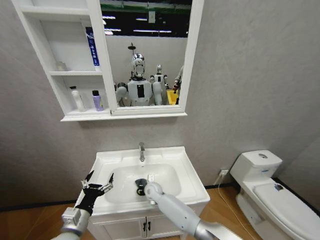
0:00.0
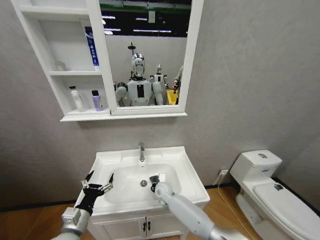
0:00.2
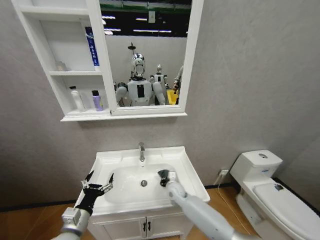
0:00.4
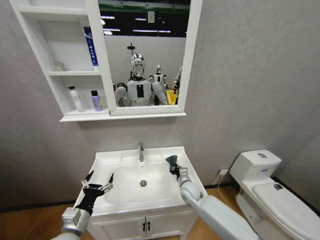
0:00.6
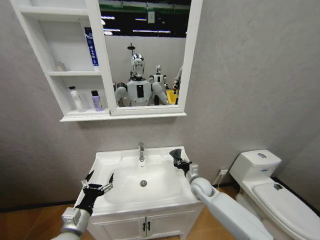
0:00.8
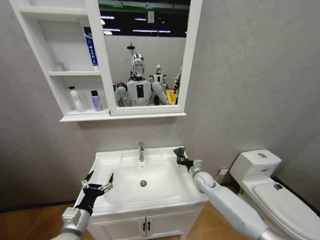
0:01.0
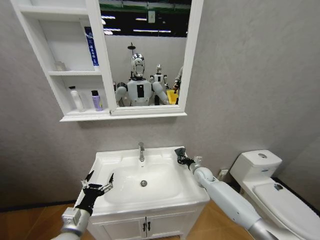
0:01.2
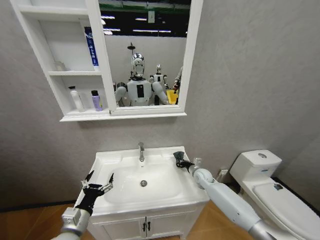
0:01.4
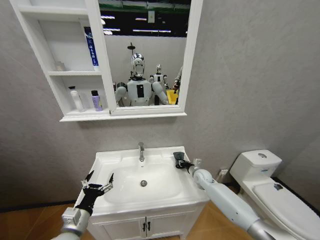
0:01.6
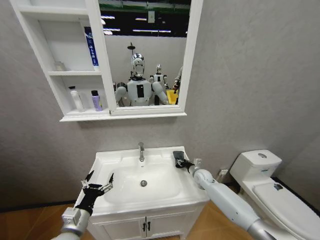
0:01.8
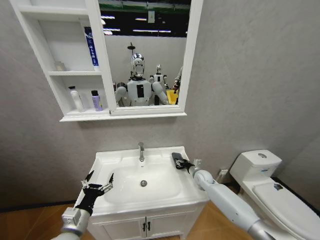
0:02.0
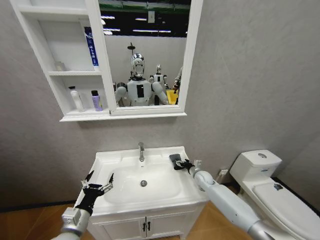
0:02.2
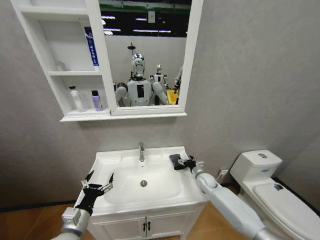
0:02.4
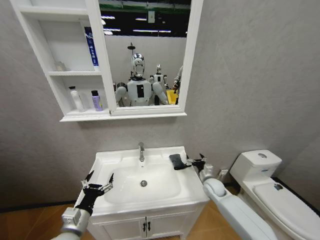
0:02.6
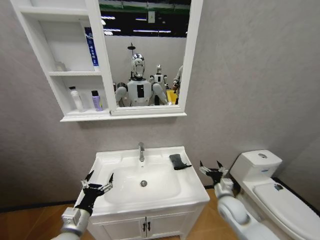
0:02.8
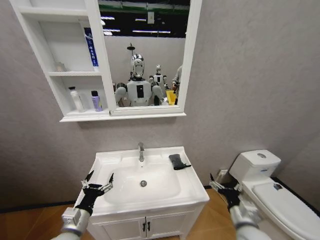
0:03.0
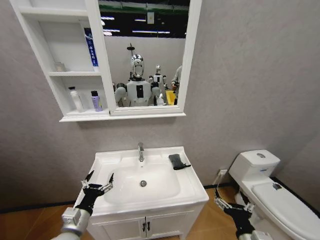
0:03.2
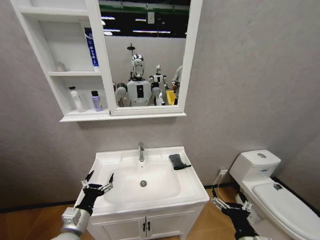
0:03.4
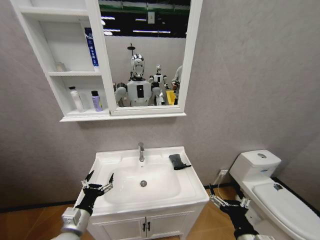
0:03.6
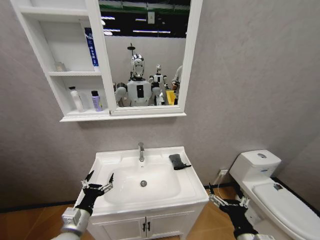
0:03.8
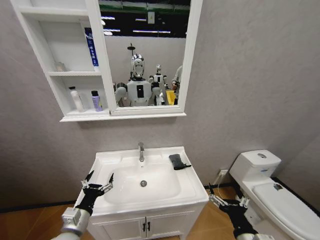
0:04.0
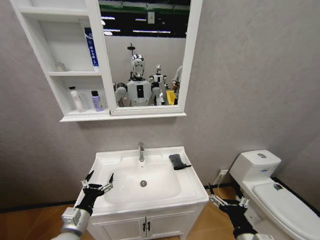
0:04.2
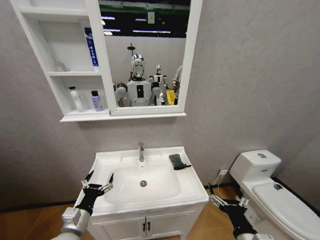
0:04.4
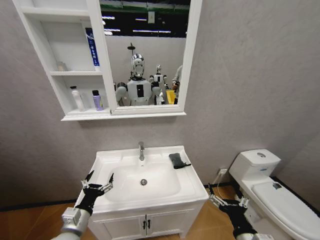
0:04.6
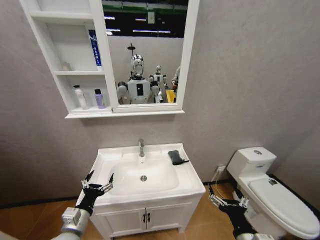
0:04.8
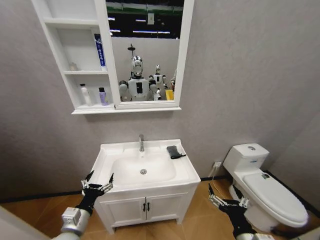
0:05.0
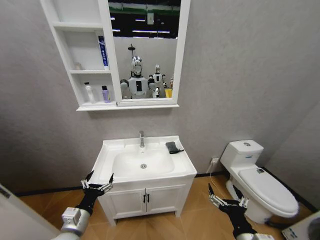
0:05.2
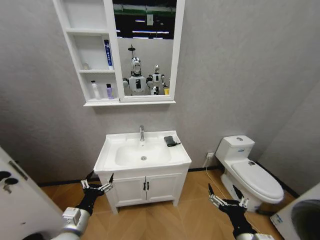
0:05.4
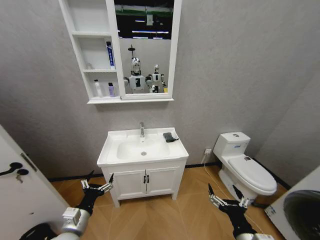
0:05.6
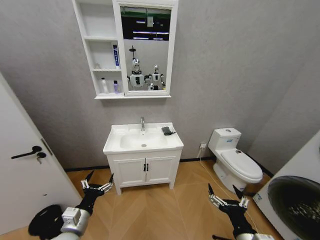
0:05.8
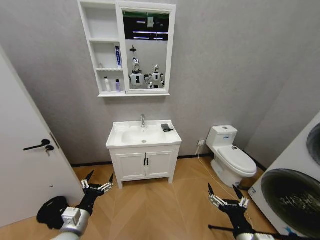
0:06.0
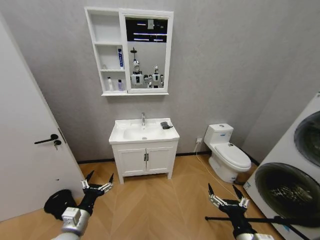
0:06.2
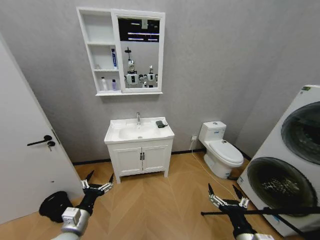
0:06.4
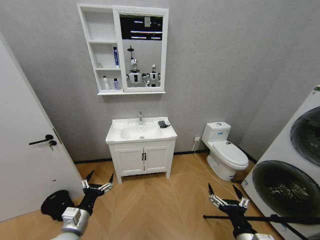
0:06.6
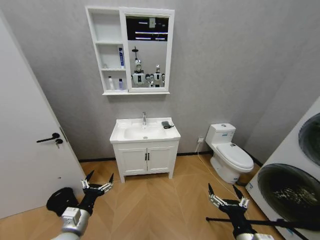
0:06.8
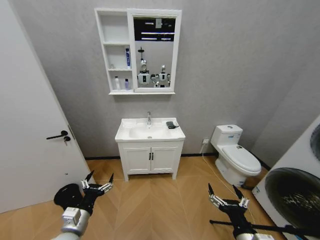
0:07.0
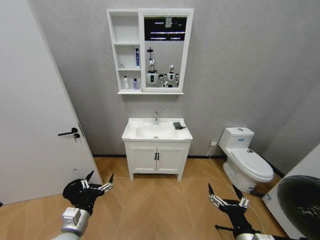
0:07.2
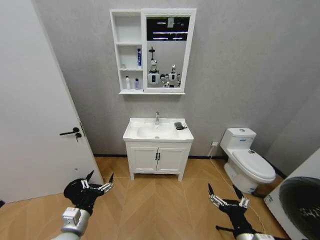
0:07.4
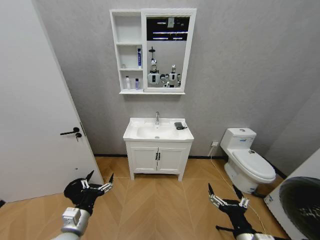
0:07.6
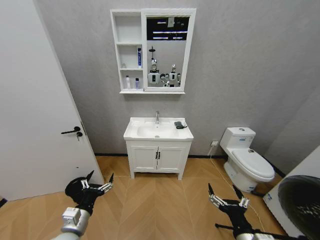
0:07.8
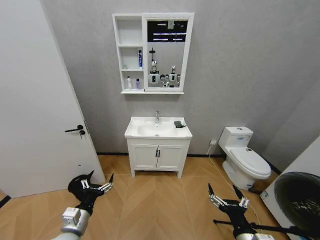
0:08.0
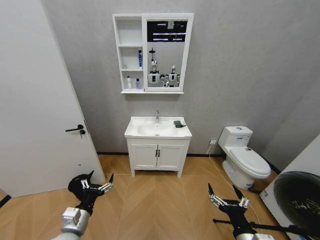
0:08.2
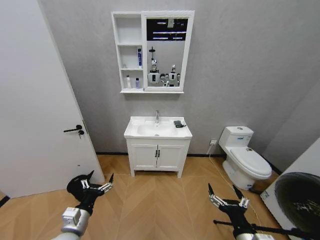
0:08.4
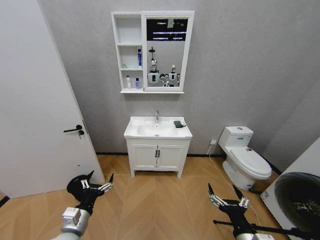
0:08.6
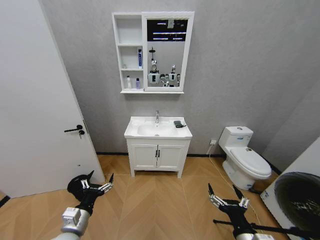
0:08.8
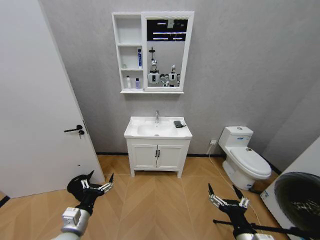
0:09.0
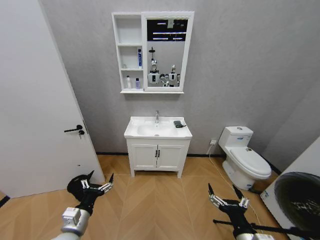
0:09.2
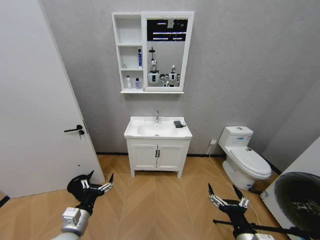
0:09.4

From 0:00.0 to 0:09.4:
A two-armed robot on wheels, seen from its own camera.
Task of the whole recording: Move facial cleanser and shampoo from washbasin to cabinet, then wipe washbasin with towel.
From 0:00.0 to 0:01.6: The right gripper heads to the right, covering about 30 cm.
From 0:01.6 to 0:03.2: The right gripper goes about 35 cm backward, and opens.
From 0:03.2 to 0:04.8: The grippers move only a little.
From 0:07.8 to 0:09.4: Both grippers stay about where they are.

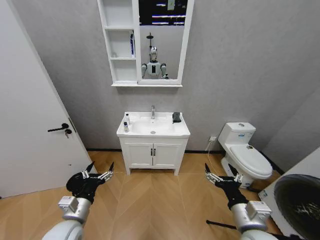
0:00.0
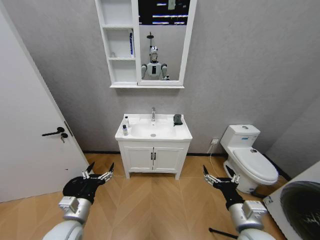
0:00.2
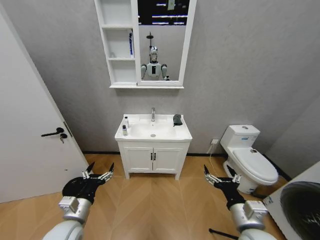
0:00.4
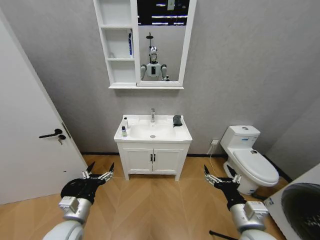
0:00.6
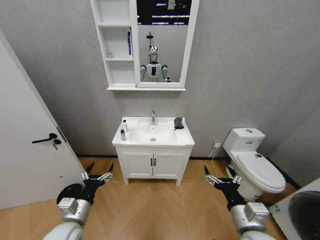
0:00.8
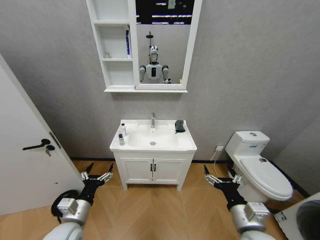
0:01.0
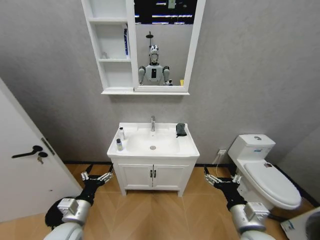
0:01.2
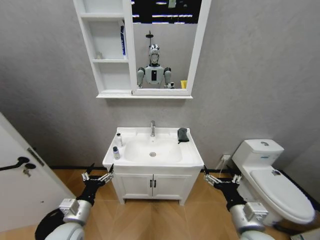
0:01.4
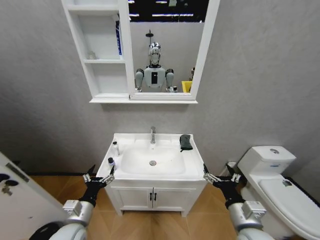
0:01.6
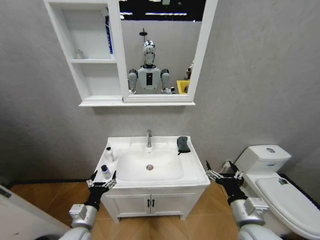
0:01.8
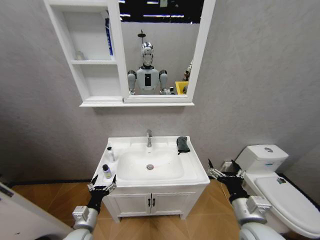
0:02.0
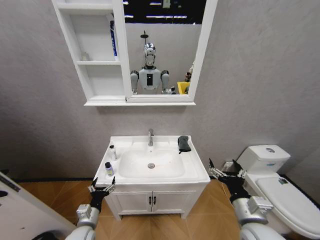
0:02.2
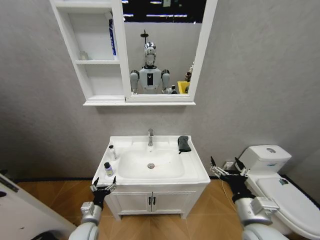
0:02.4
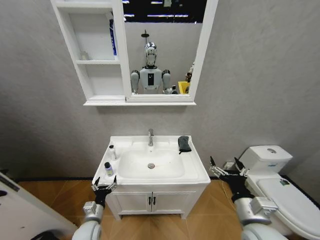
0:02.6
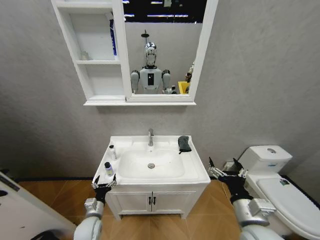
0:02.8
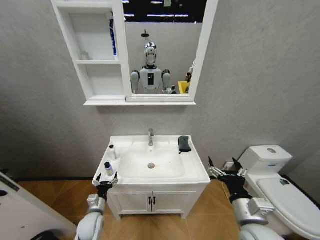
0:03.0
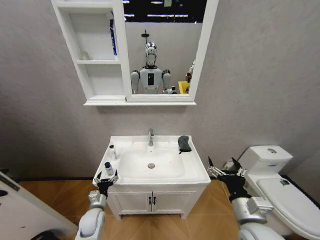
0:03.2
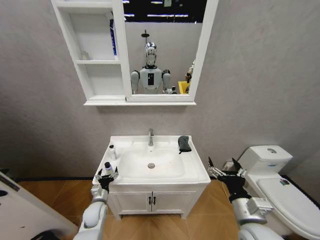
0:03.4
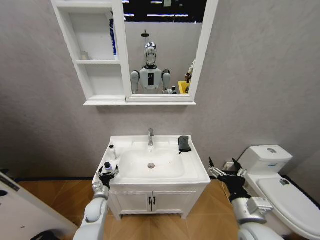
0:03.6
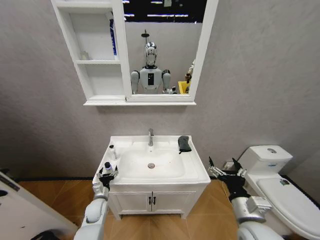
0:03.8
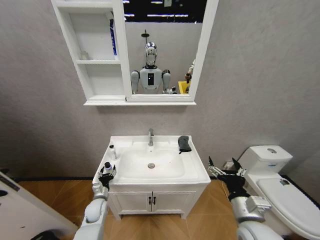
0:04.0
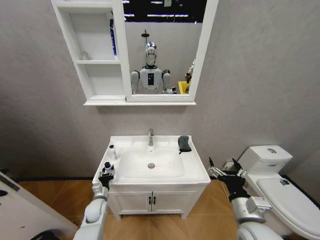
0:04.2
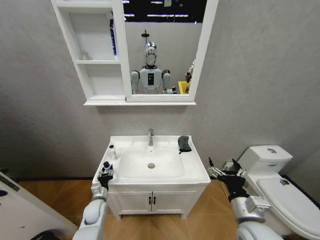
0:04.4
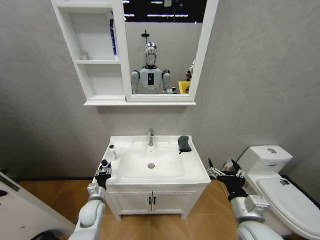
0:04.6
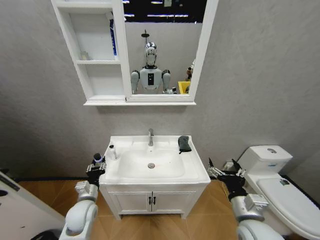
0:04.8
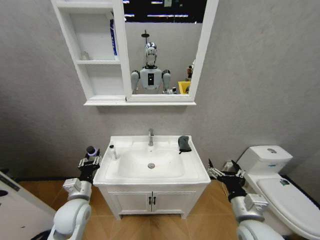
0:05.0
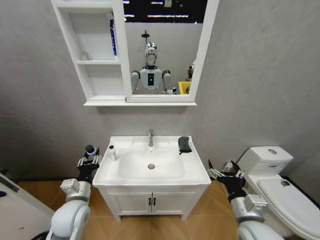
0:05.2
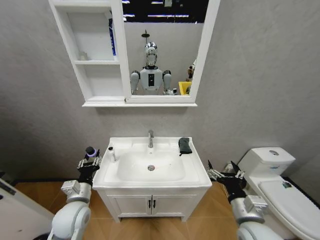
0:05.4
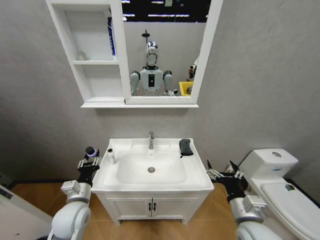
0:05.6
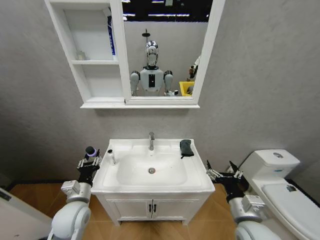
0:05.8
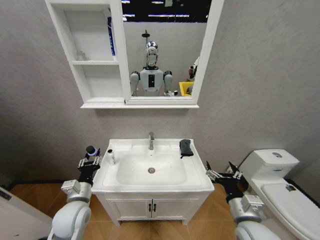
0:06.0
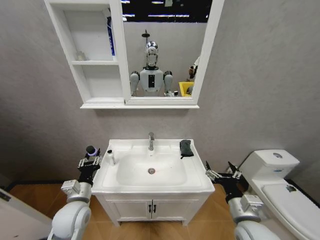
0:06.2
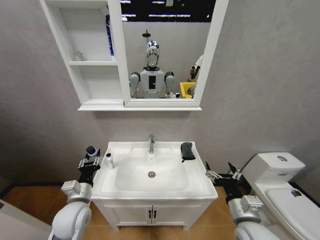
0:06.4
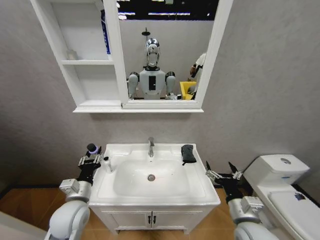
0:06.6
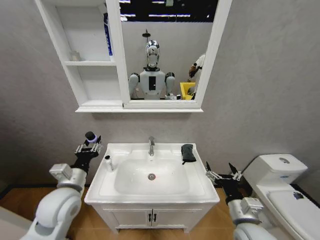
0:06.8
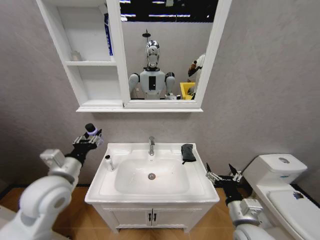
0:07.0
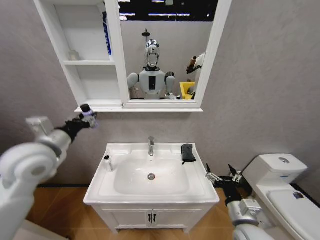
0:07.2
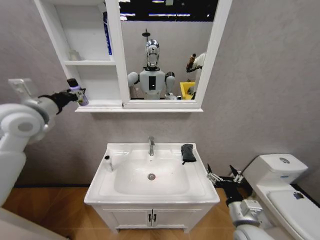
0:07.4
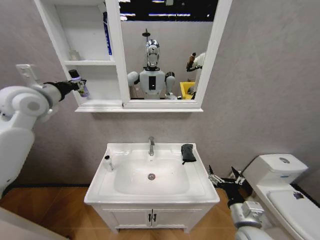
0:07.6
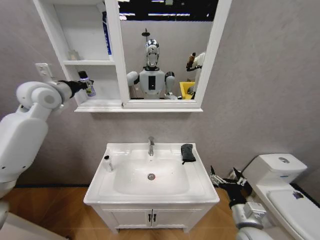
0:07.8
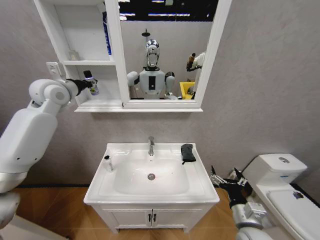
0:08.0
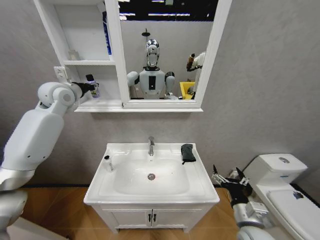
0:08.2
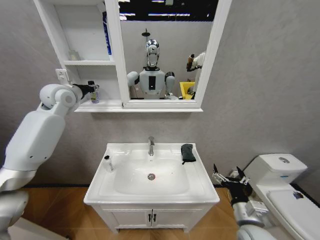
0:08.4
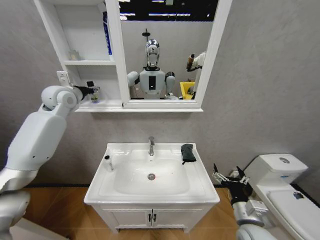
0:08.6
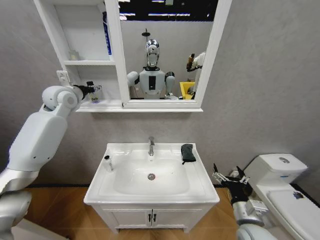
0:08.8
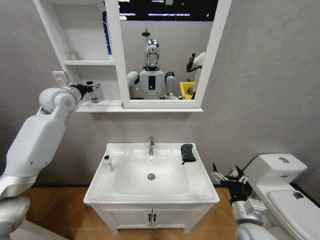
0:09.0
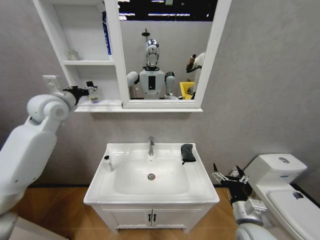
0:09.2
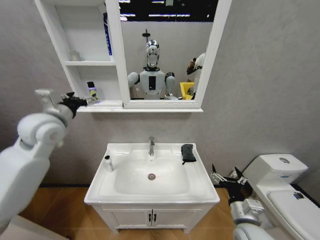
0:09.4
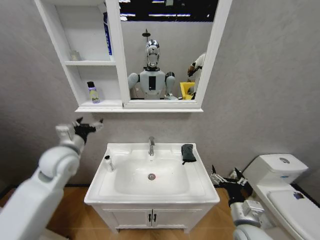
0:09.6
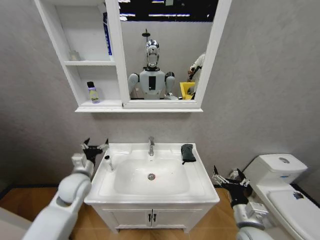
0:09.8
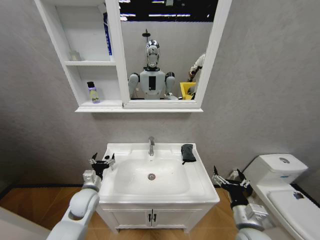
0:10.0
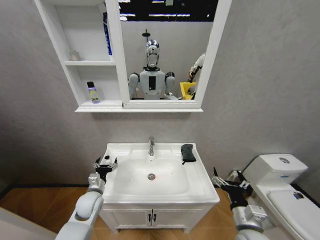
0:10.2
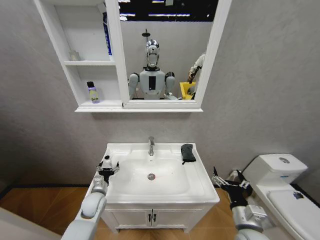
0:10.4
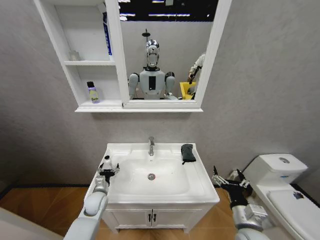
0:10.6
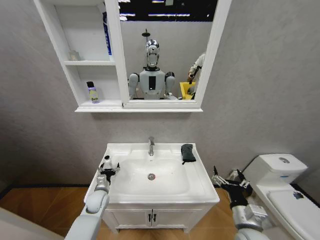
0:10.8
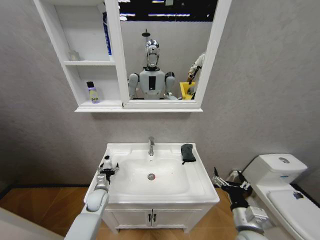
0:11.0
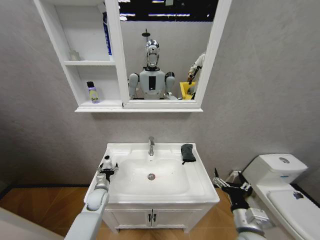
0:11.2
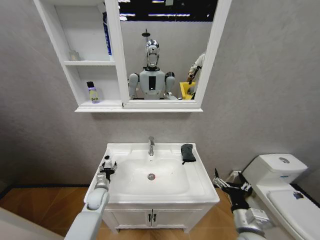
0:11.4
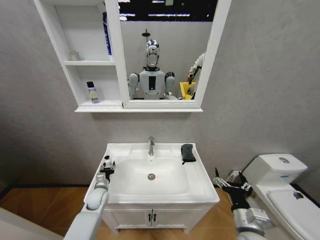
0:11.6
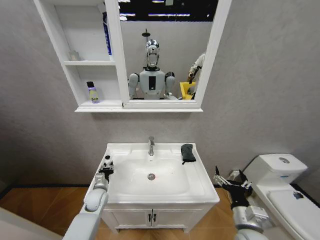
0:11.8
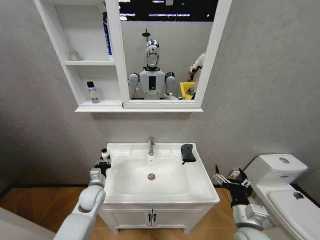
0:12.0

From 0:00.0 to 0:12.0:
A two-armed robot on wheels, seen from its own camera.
Task of the whole recording: Move facial cleanser and shampoo from washbasin to cabinet, then wipe washbasin with towel.
From 0:01.6 to 0:03.0: The left gripper heads downward and forward, covering some 15 cm.
From 0:03.0 to 0:04.4: The left gripper is displaced forward by roughly 5 cm, and closes.
From 0:04.4 to 0:06.0: The left gripper shifts about 20 cm upward and backward.
From 0:06.0 to 0:07.6: The left gripper heads upward and forward, covering some 35 cm.
From 0:07.6 to 0:09.0: The left gripper is displaced forward by approximately 10 cm, and opens its fingers.
From 0:09.0 to 0:10.4: The left gripper goes roughly 40 cm downward.
From 0:10.4 to 0:12.0: The left gripper closes.

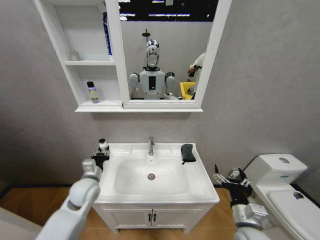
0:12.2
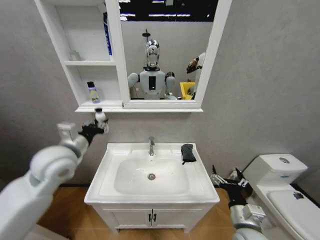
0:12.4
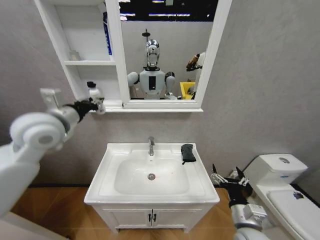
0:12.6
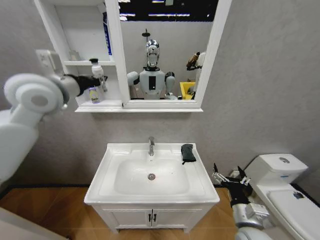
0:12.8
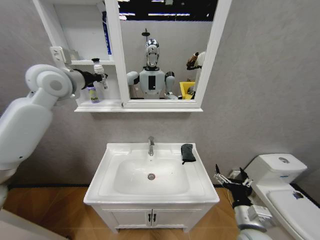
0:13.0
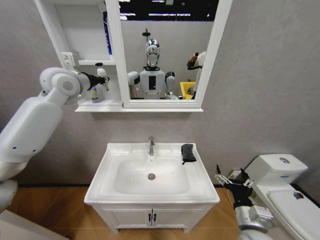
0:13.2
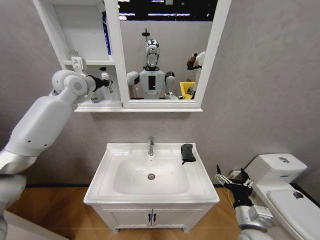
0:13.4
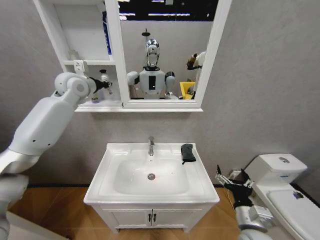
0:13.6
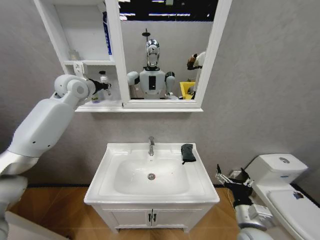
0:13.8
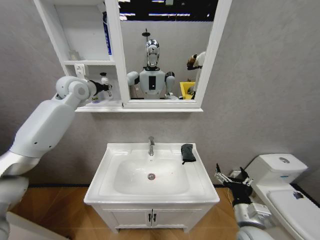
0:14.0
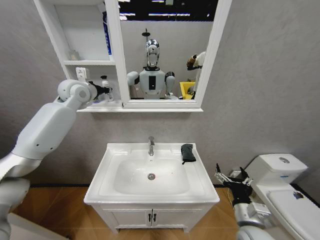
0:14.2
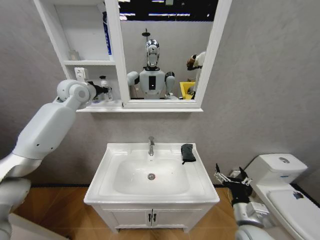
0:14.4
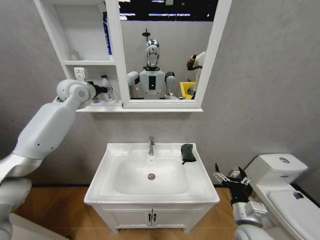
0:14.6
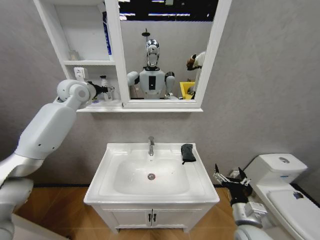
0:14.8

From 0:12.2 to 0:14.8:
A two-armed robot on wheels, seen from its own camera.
Task of the whole recording: Move facial cleanser and shampoo from washbasin to cabinet, then wipe washbasin with towel.
From 0:12.2 to 0:13.4: The left gripper heads upward and forward, covering about 35 cm.
From 0:13.4 to 0:14.8: The left gripper opens up.
